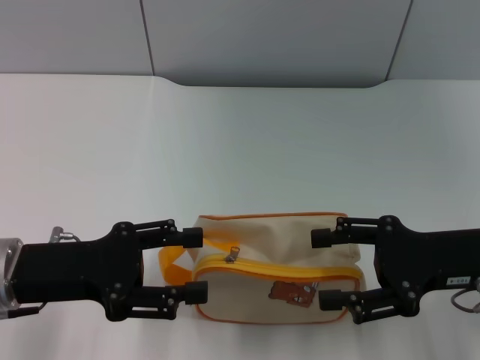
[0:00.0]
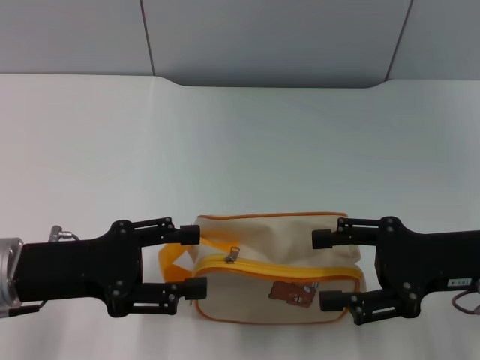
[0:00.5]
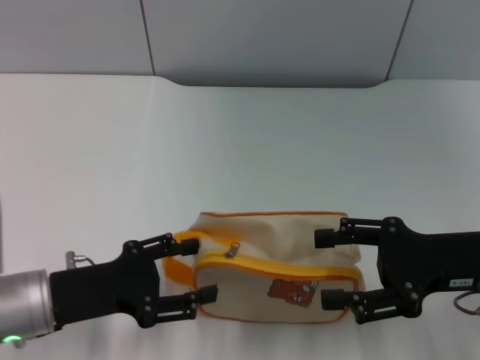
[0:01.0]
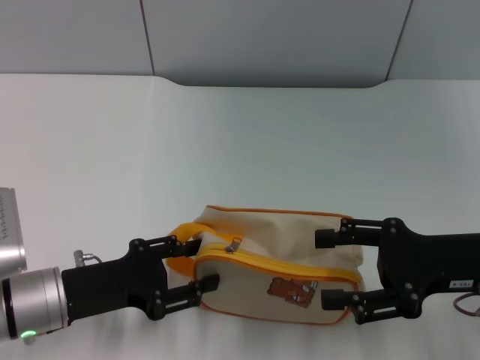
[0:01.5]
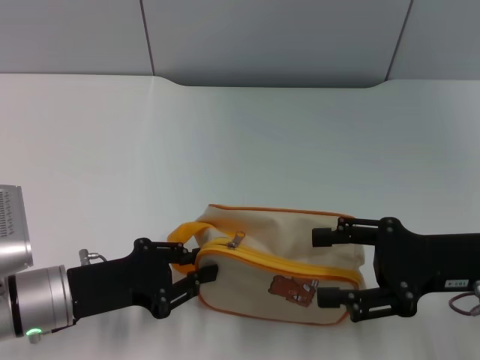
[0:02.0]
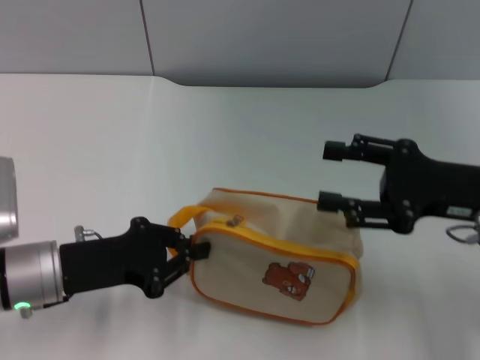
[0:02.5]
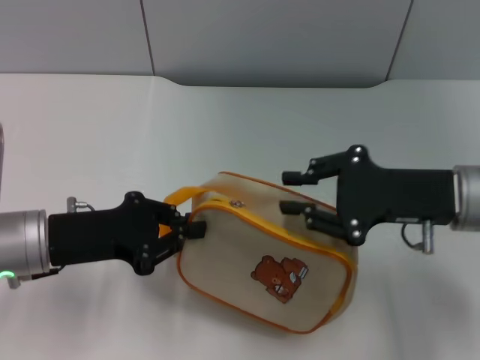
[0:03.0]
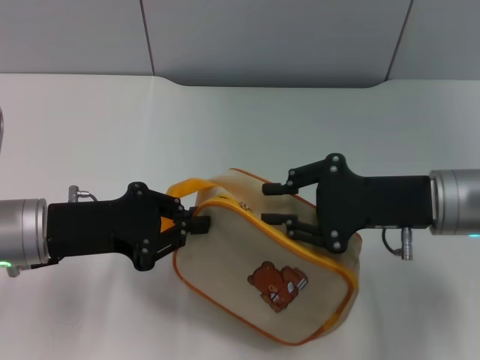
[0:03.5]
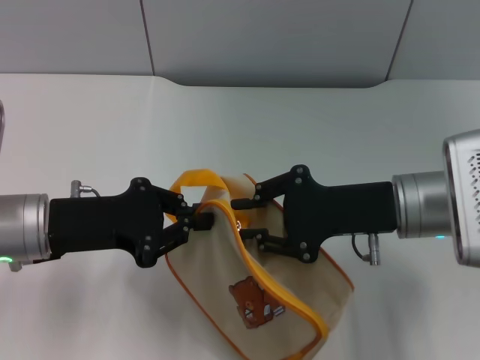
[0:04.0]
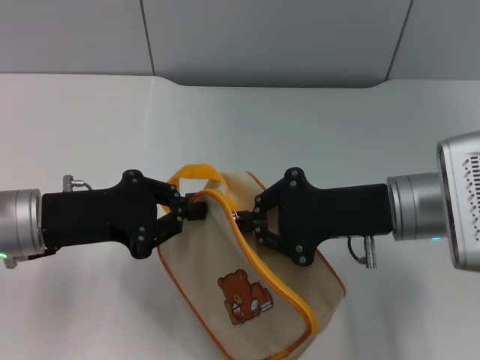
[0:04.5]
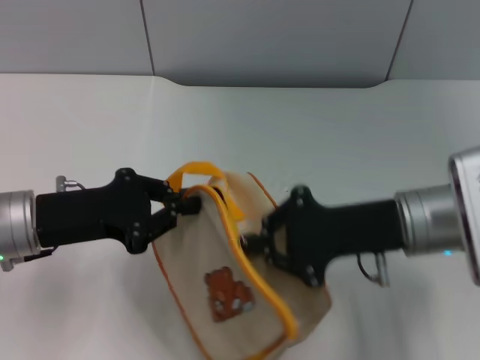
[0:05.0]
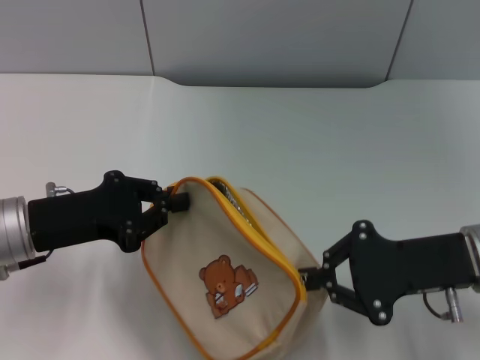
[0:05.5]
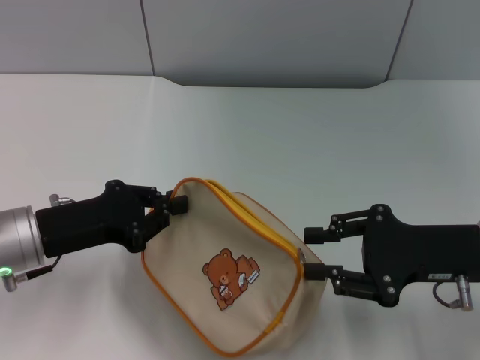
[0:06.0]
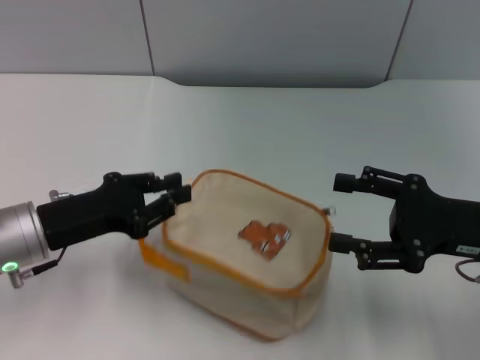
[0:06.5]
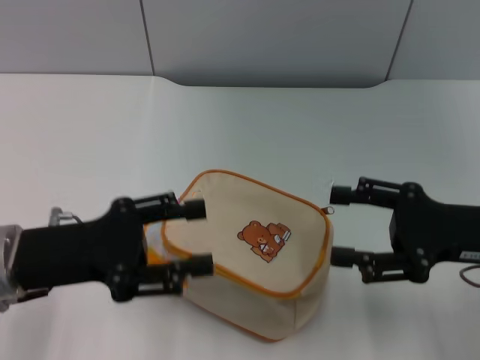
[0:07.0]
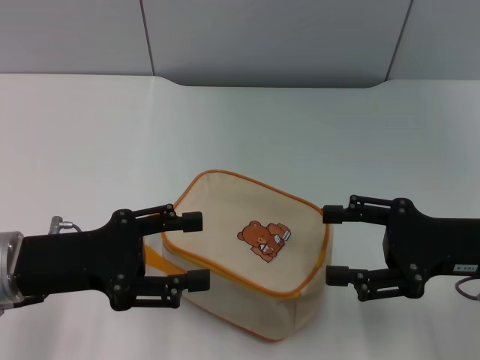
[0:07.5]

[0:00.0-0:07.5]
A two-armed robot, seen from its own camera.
Step, 0:00.0 to 0:03.0: Pick up the bag with left gripper.
Step, 0:03.5 to 0:06.0: Unzip the zipper of bag with right gripper.
0:00.0 to 0:02.0: The left gripper goes about 5 cm downward, and closes its fingers.
0:02.0 to 0:04.0: The left gripper travels upward by roughly 5 cm, and closes up; the right gripper moves to the left and forward, approximately 10 cm, and closes up.
0:04.0 to 0:05.5: The right gripper shifts roughly 5 cm to the right.
0:05.5 to 0:07.5: The right gripper opens up. The left gripper opens.
